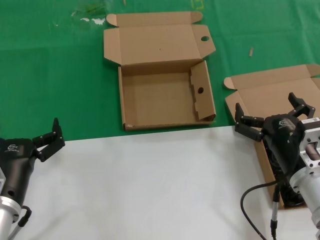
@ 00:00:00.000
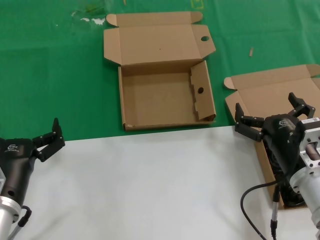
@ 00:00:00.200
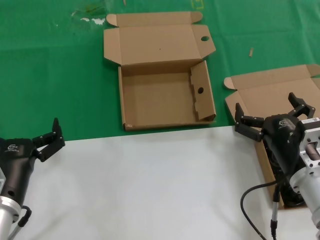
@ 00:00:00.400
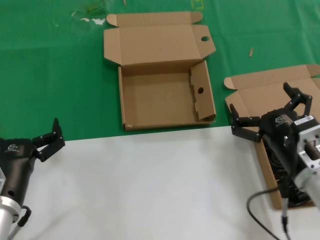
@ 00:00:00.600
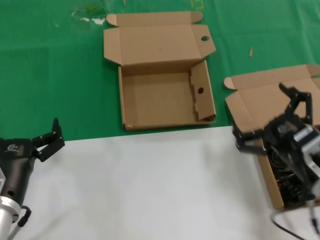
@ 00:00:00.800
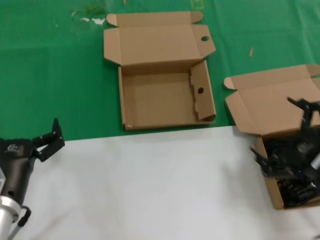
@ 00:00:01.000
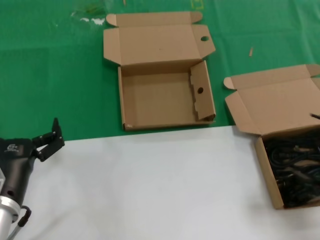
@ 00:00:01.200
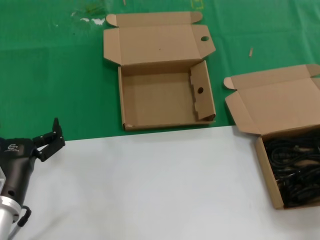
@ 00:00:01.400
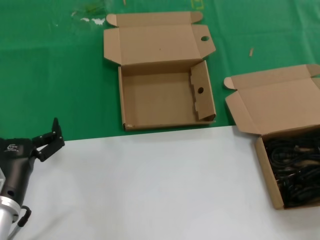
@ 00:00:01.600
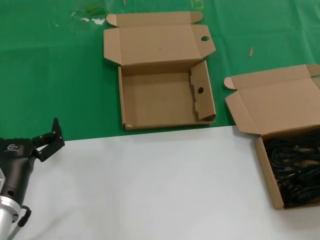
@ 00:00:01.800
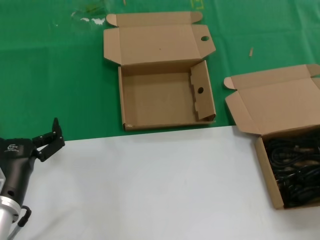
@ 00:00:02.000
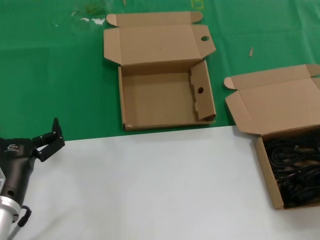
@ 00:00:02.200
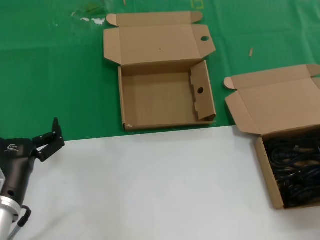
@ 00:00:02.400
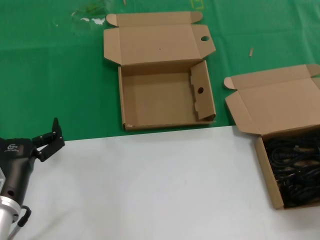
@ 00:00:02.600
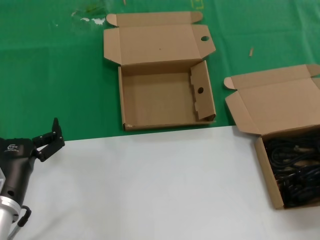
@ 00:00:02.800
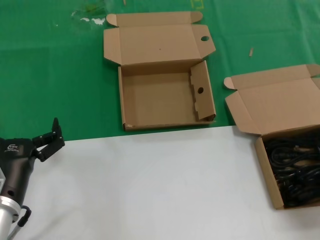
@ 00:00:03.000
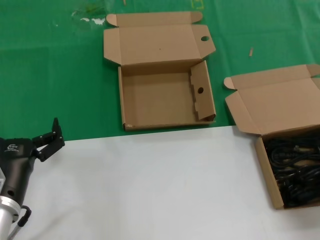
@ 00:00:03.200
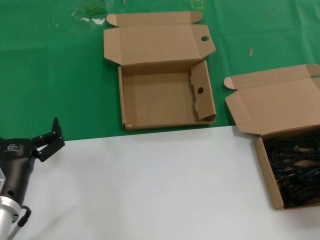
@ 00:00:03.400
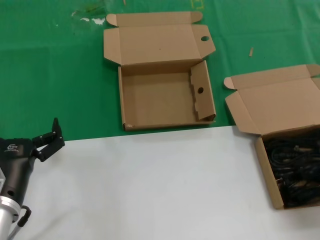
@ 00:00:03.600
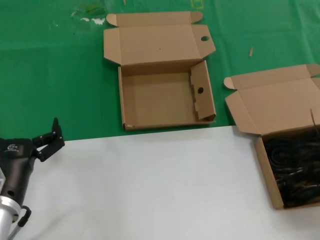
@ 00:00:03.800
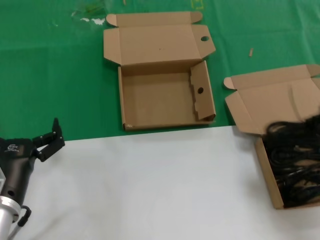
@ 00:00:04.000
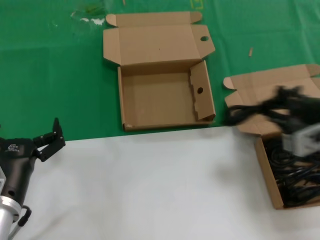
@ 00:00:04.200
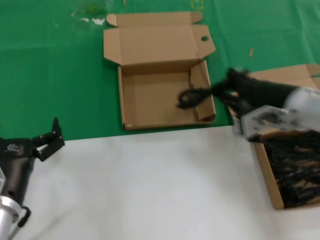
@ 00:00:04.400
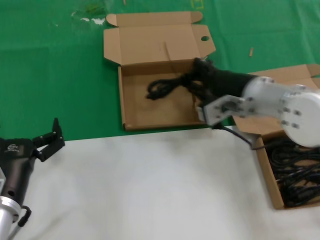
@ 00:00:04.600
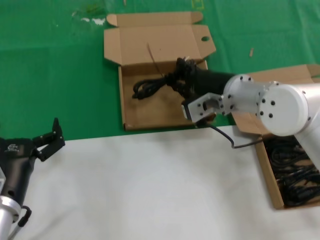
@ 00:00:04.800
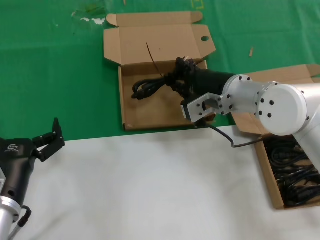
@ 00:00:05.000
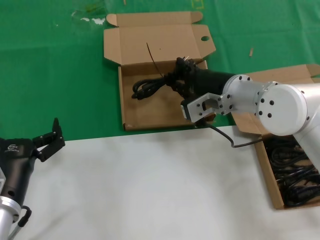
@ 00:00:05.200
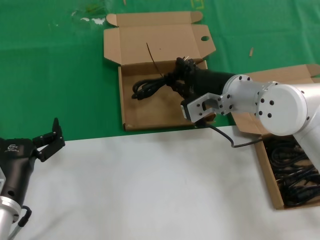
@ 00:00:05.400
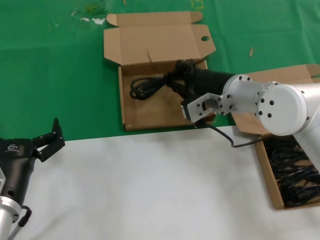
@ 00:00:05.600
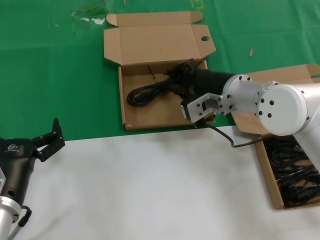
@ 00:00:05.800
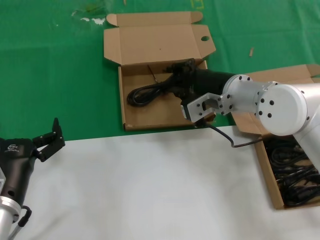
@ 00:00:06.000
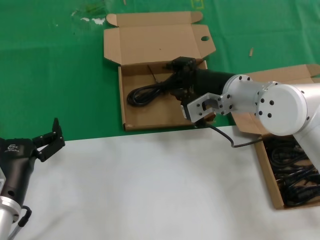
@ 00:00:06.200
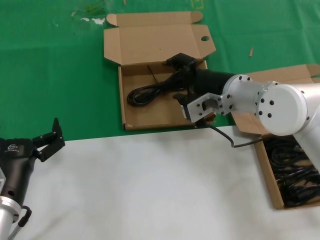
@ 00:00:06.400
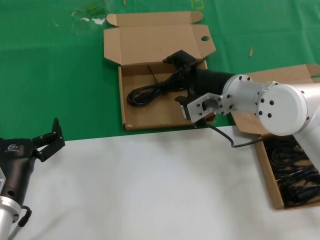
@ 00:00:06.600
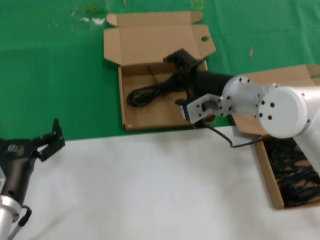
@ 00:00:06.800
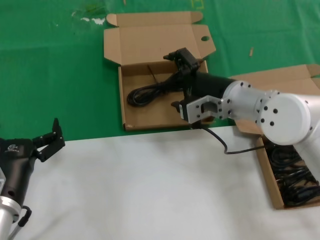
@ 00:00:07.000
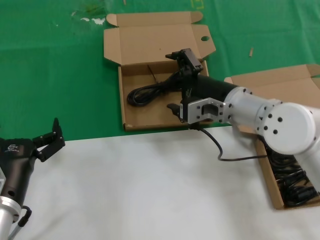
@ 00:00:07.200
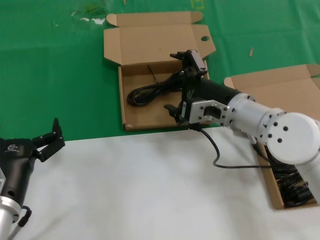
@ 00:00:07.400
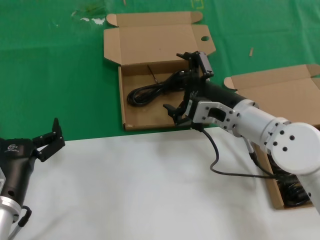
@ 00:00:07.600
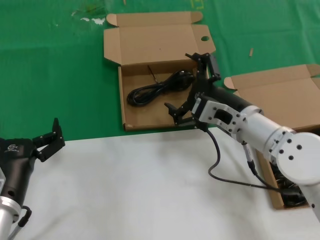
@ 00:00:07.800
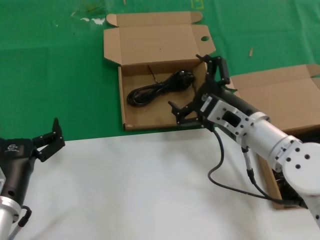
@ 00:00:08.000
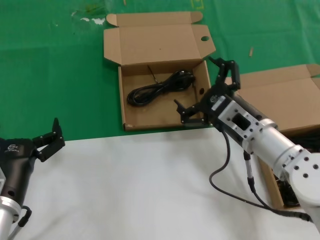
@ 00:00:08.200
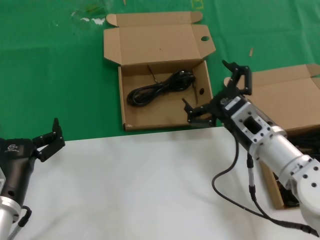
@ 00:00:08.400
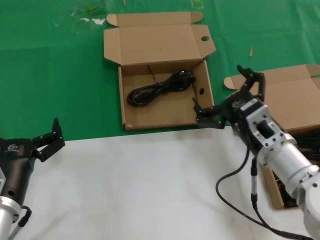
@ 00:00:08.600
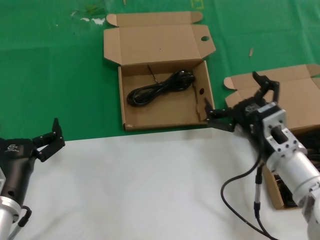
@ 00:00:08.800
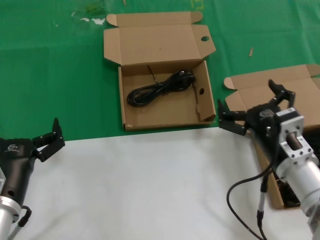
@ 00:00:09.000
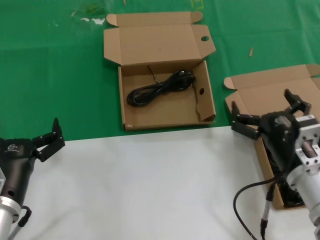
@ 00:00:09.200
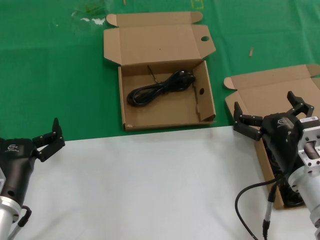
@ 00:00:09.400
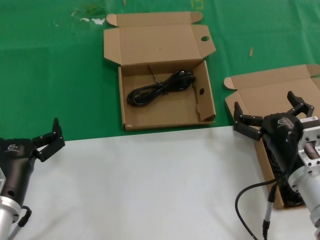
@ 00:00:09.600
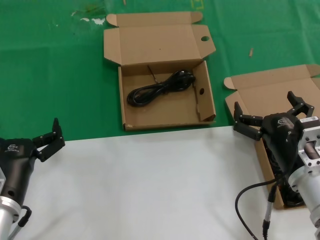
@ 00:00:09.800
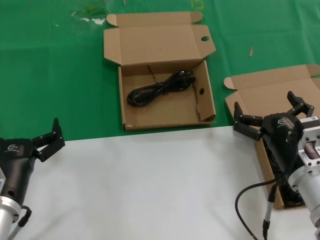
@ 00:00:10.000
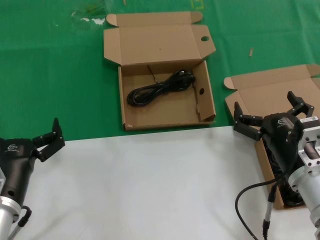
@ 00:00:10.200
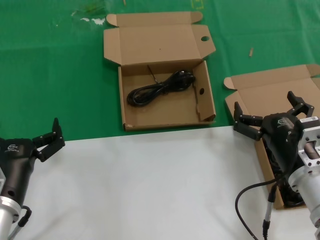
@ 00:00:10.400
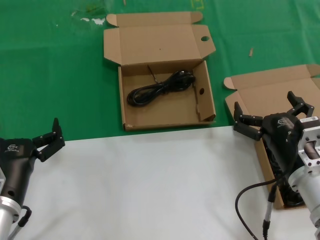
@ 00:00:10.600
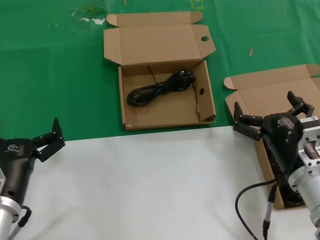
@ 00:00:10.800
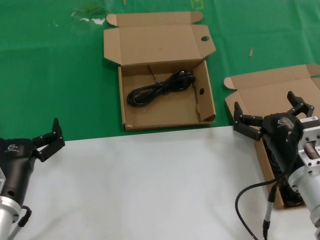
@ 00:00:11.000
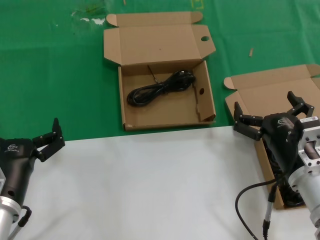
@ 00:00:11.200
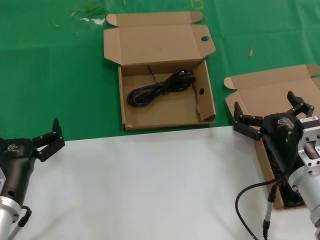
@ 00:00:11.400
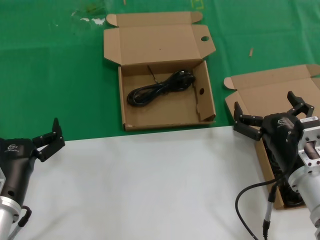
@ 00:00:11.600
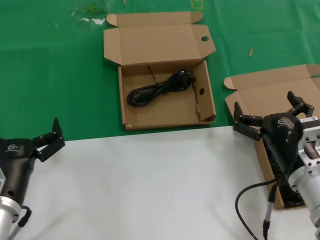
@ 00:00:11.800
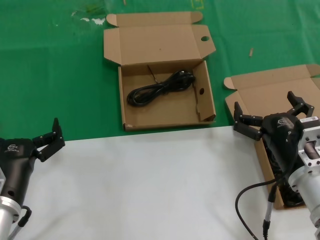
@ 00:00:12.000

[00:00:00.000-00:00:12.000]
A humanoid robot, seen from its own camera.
Task of the whole recording: take the parts from the box containing them and put them into an empty box.
Step, 00:00:00.000 to 00:00:03.600: Grasp the data cable.
Step, 00:00:03.800 to 00:00:07.600: Place the data cable in the another box.
00:00:00.000 to 00:00:01.600: The right hand heads to the right, upward and backward, covering some 20 cm.
00:00:03.000 to 00:00:04.400: The right hand shifts roughly 20 cm to the left and forward.
00:00:04.400 to 00:00:06.000: The right hand shifts roughly 15 cm forward and to the left.
00:00:06.000 to 00:00:07.600: The right hand changes place by roughly 5 cm.
00:00:07.600 to 00:00:09.000: The right hand moves backward, downward and to the right, some 15 cm.
00:00:09.000 to 00:00:10.400: The hands move only a little.
00:00:10.400 to 00:00:12.000: Neither hand changes place.

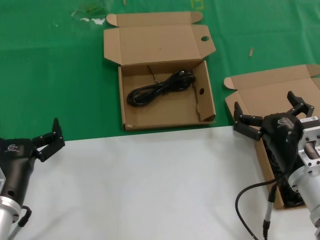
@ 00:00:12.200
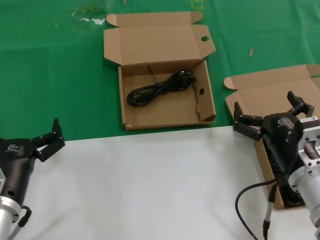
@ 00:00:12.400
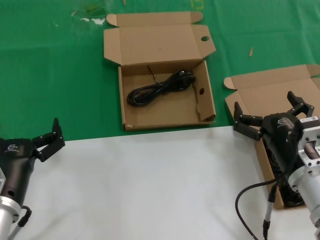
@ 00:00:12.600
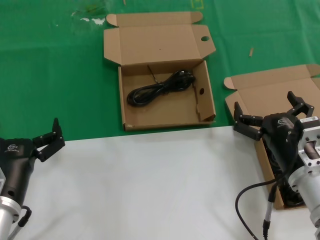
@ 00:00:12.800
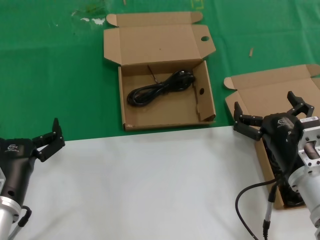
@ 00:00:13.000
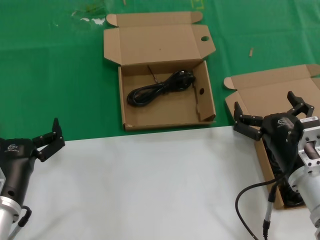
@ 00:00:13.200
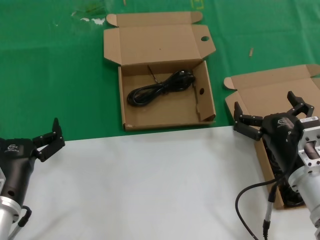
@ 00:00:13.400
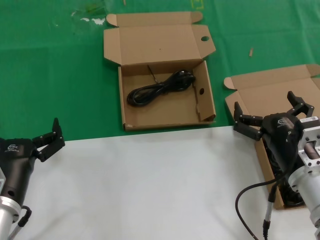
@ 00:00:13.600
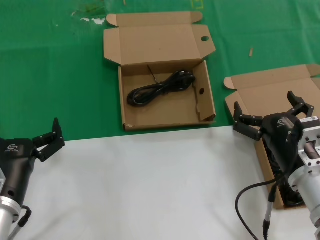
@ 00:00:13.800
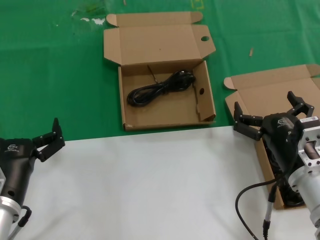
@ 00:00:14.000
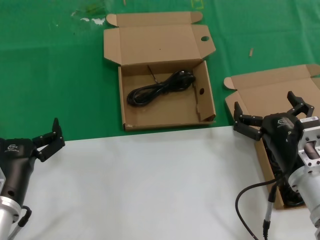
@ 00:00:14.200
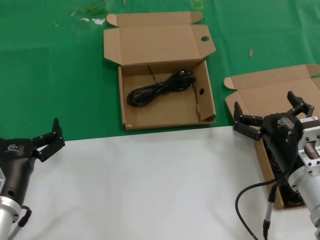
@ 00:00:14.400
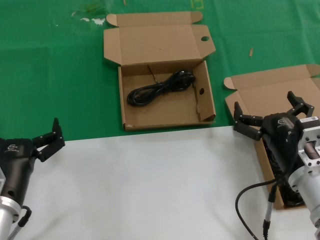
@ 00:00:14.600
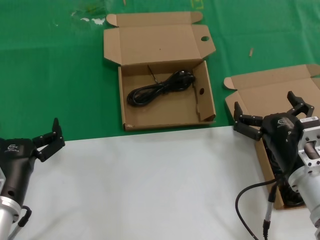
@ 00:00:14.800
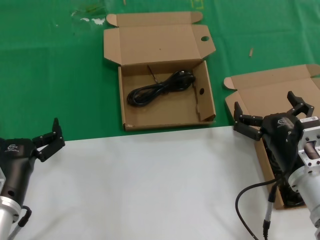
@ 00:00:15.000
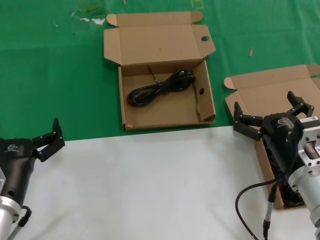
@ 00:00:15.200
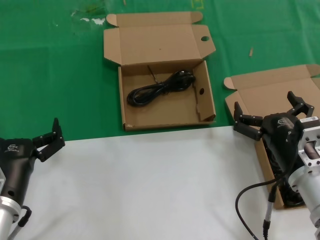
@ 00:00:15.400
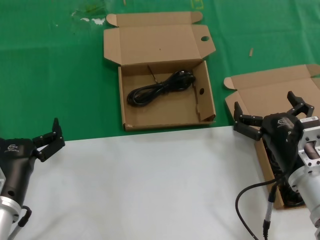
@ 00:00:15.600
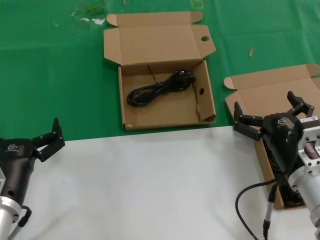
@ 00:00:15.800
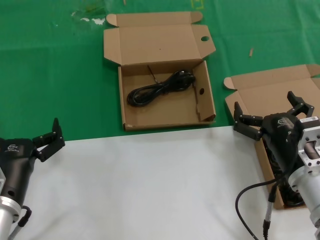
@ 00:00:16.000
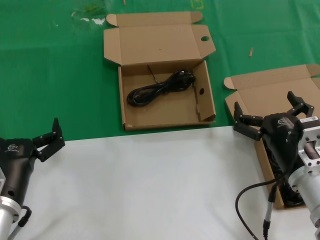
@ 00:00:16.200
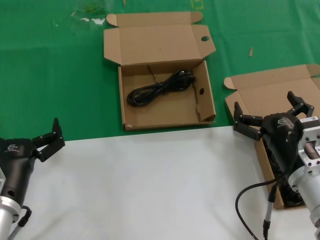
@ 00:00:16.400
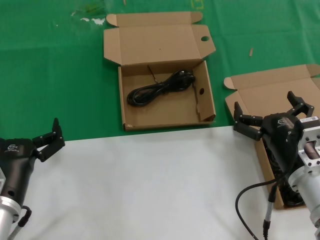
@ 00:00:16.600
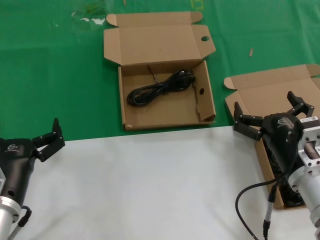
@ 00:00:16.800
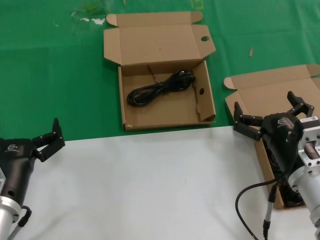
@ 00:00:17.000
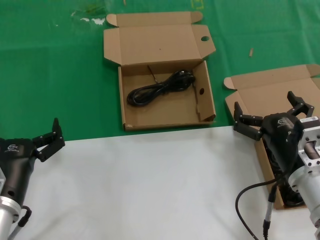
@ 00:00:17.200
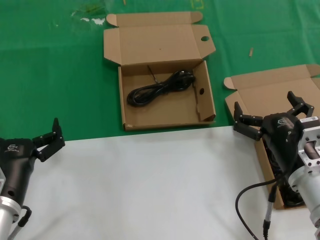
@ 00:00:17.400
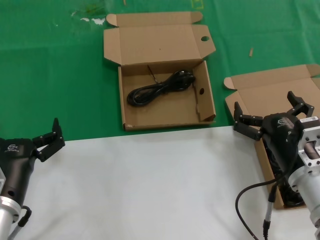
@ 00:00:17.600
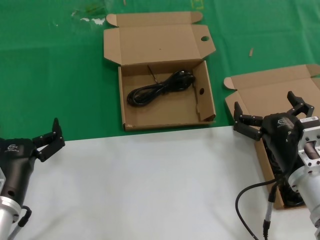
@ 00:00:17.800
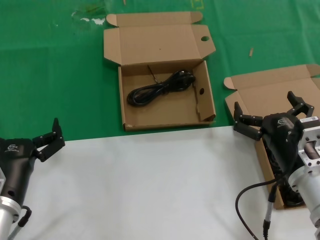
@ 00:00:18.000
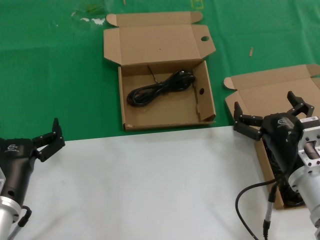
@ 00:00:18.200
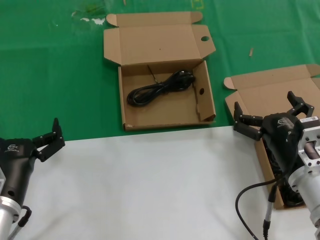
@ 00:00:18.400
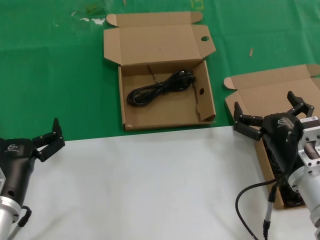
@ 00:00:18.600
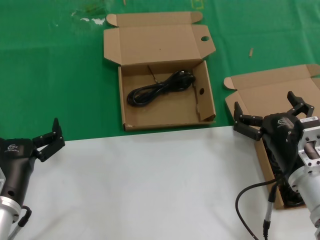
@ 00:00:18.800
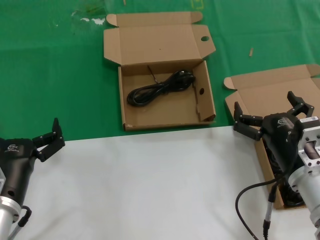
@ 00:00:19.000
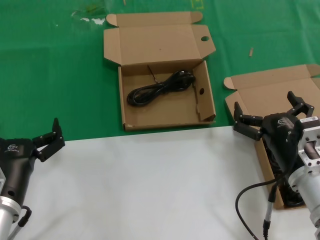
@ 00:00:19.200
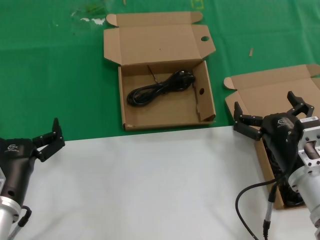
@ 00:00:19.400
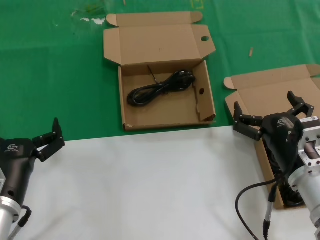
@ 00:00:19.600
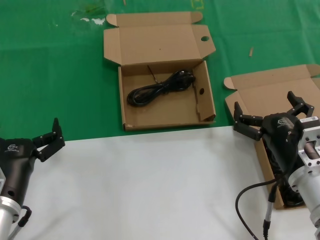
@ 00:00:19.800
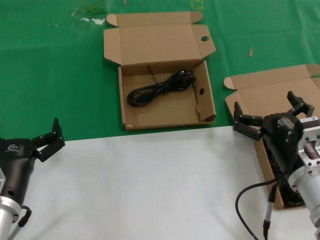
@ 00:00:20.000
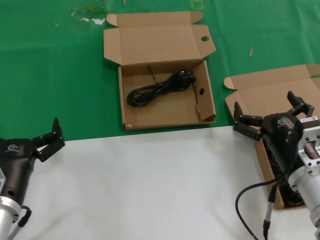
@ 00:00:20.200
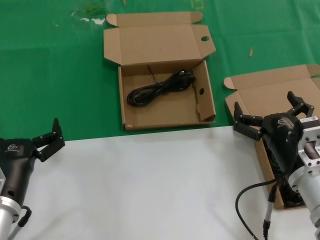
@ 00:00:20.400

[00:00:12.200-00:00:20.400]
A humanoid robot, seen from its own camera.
Task of the whole recording: take the parts from the box containing them and put them into an empty box.
00:00:12.200 to 00:00:20.400: The two hands keep their place.
